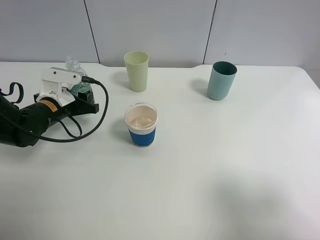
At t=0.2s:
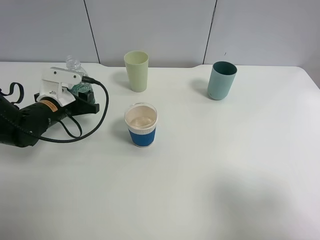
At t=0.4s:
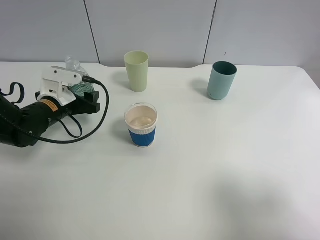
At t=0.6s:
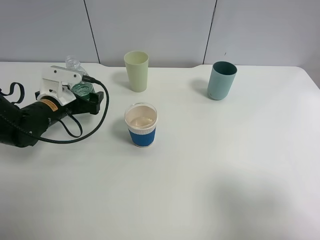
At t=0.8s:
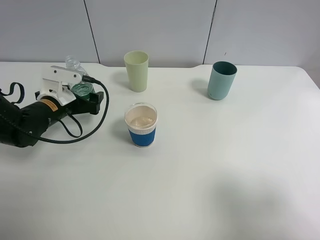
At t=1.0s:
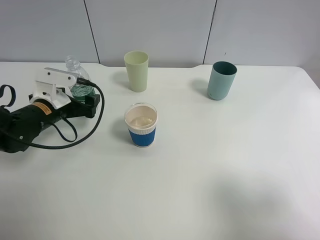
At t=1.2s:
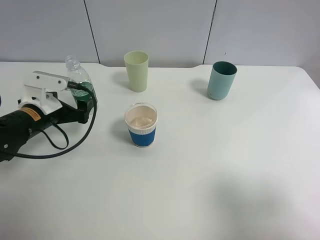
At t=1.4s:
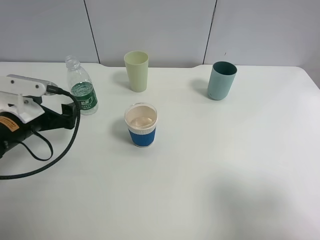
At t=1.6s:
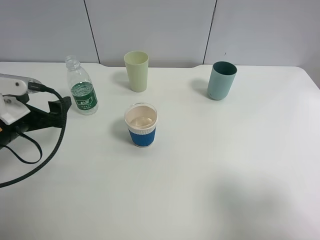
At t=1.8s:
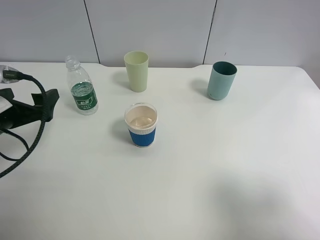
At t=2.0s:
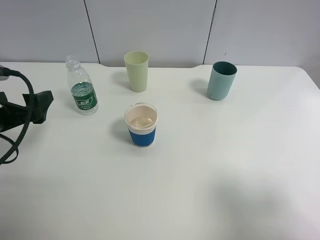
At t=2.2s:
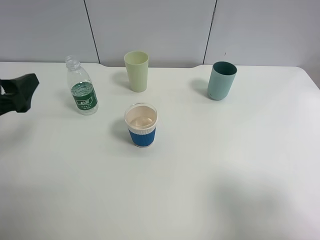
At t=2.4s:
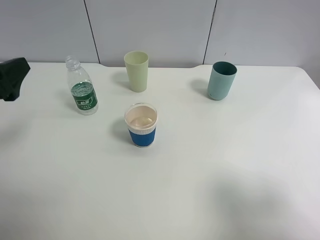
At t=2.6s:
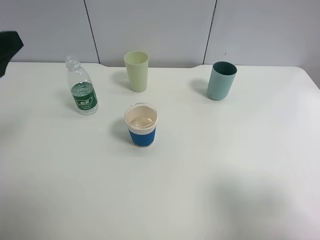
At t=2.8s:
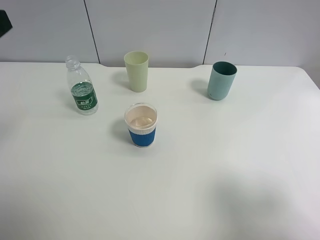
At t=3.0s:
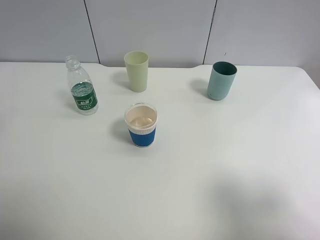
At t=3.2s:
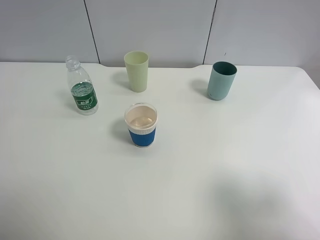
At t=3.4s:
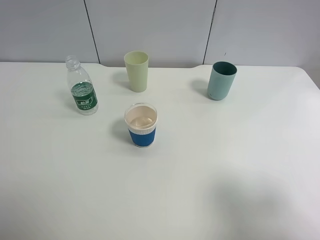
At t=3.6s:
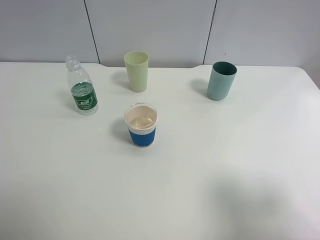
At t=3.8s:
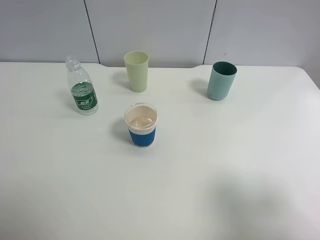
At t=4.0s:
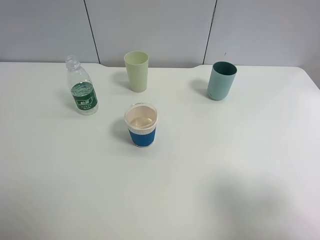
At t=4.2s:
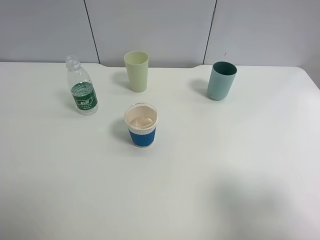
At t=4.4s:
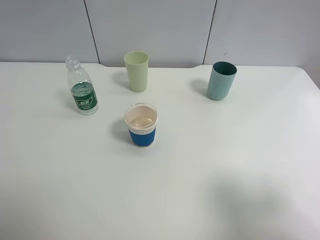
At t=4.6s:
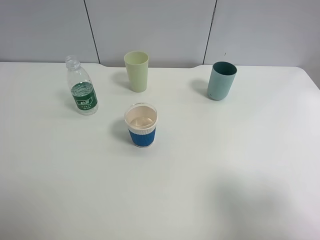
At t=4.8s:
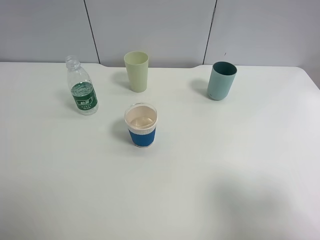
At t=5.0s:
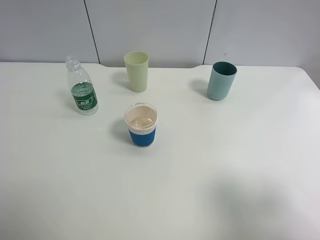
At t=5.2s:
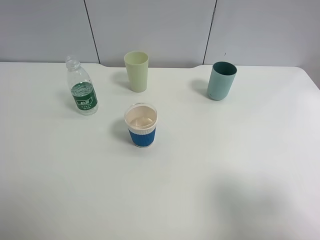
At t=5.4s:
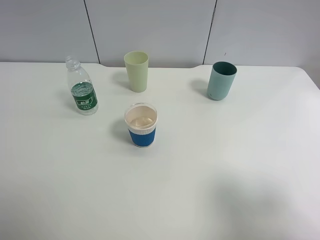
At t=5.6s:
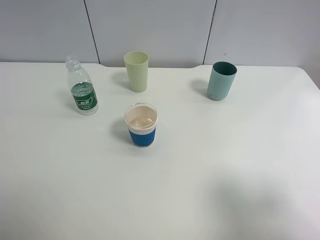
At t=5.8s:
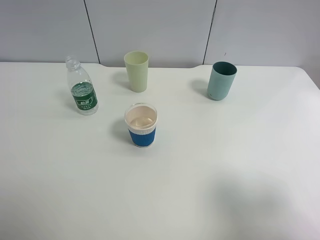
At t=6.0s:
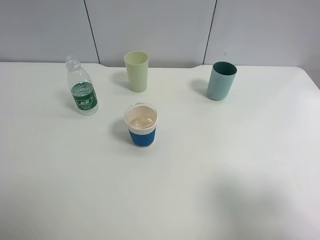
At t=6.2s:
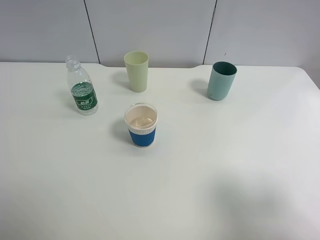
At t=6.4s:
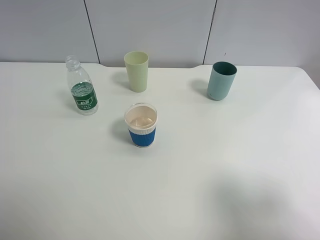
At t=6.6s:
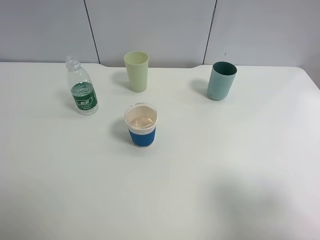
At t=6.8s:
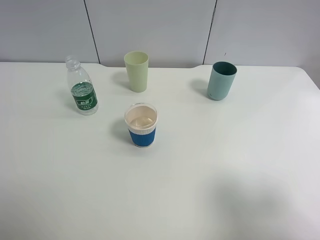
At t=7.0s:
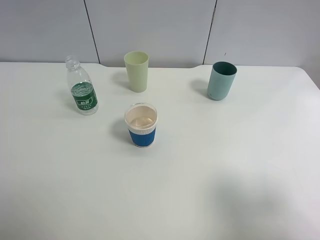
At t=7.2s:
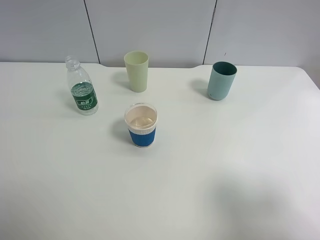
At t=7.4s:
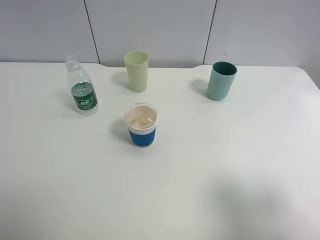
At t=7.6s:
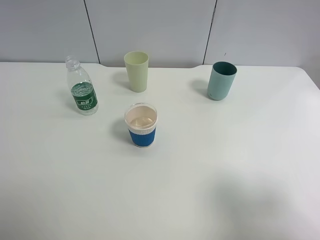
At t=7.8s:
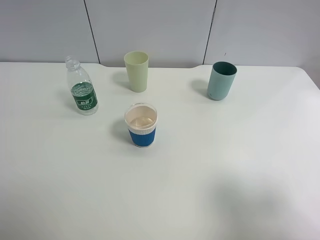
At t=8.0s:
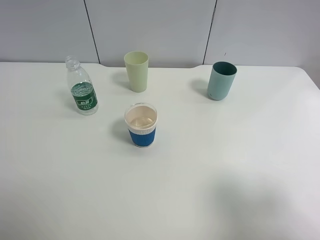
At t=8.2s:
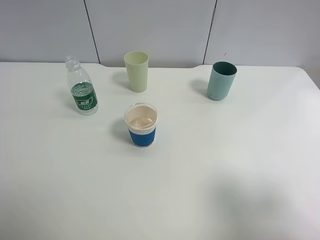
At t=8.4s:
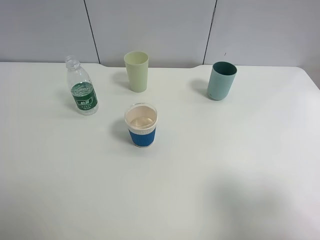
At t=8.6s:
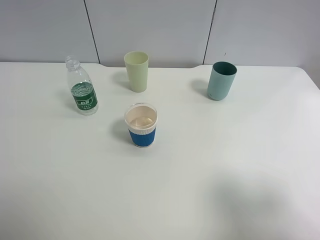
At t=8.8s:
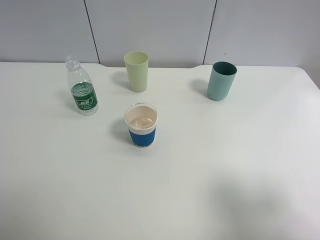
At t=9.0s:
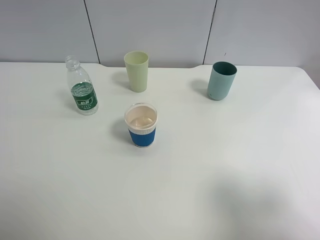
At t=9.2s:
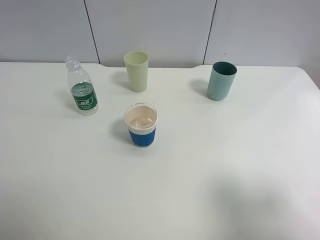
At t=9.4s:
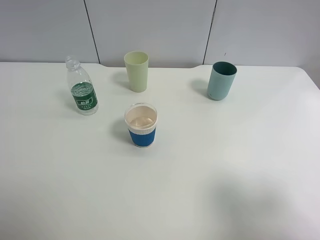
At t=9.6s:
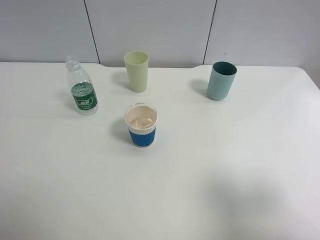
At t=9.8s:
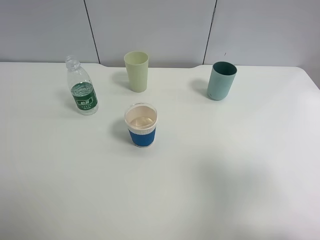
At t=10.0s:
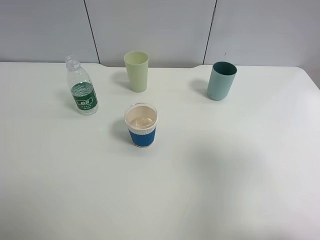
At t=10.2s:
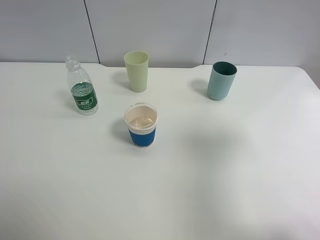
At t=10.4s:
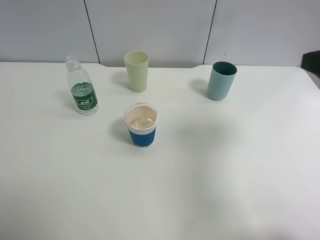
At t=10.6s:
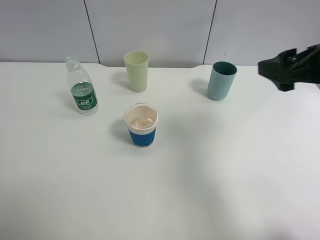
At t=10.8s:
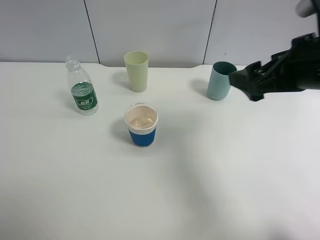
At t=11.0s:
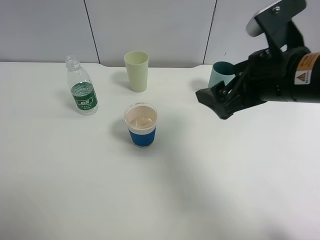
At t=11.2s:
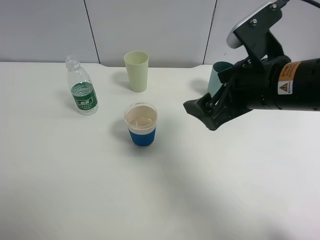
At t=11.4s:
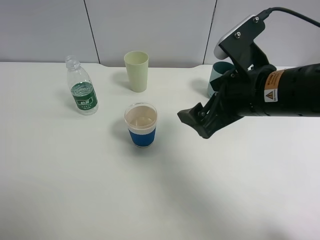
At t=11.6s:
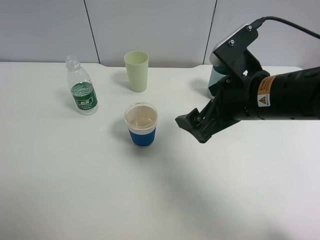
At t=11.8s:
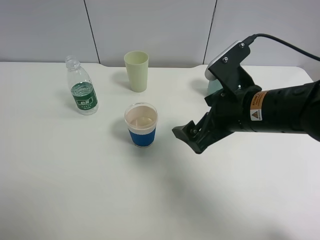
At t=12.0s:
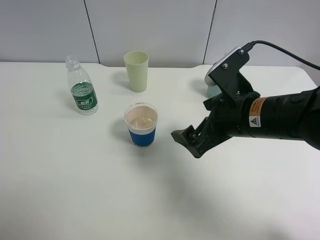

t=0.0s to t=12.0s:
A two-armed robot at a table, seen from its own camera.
Task of the whole recording: use a clamp to hold the bottle of the drink, pour the beverage into a random cup, then clamp the cup containing the drink and pour the drink into another random cup.
t=0.0s to t=1.6s: The left gripper travels backward and upward by approximately 10 cm, and opens its fingers.
t=1.6s to t=3.0s: The left gripper heads upward, covering roughly 20 cm.
t=6.0s to t=9.0s: The two grippers keep their place.
t=9.0s to t=10.4s: The right gripper is displaced forward by some 15 cm.
t=10.4s to t=12.0s: The right gripper shifts some 20 cm to the left and downward.

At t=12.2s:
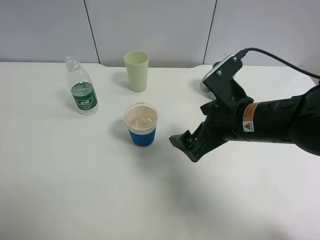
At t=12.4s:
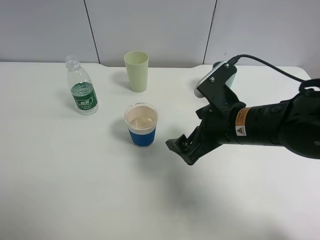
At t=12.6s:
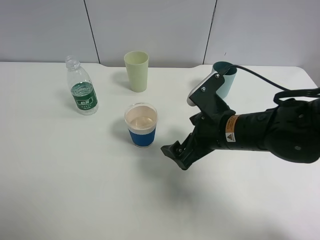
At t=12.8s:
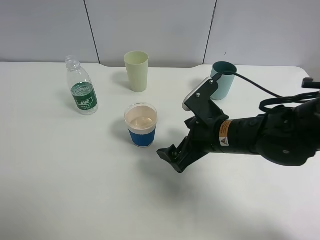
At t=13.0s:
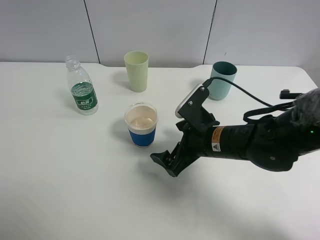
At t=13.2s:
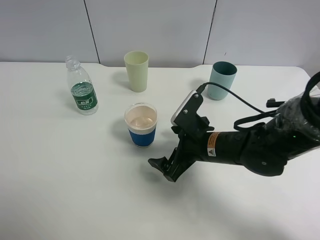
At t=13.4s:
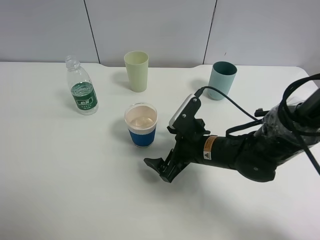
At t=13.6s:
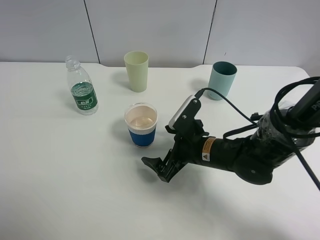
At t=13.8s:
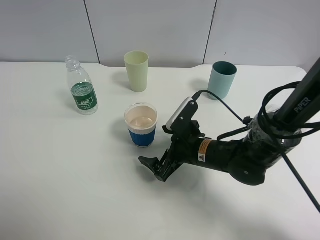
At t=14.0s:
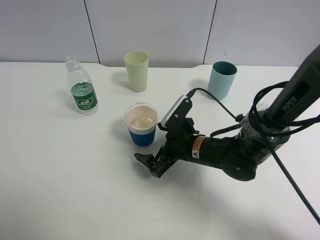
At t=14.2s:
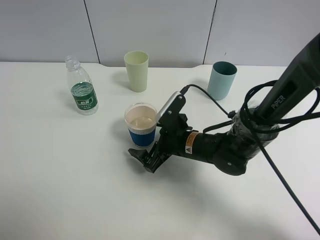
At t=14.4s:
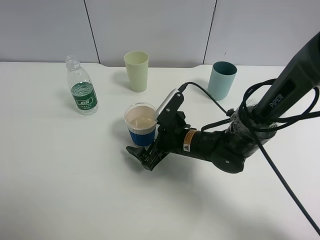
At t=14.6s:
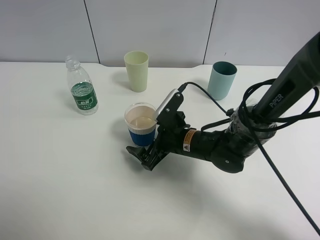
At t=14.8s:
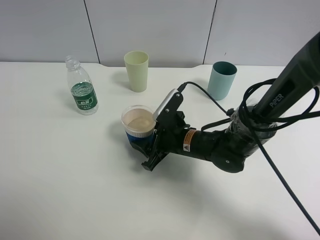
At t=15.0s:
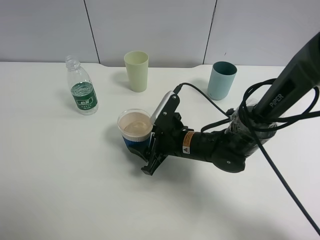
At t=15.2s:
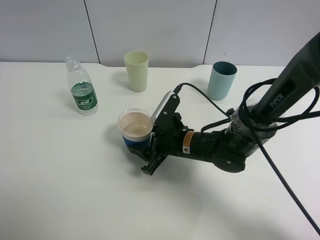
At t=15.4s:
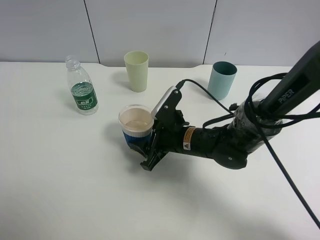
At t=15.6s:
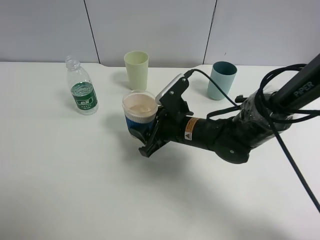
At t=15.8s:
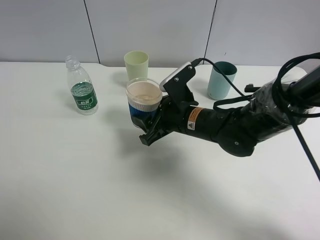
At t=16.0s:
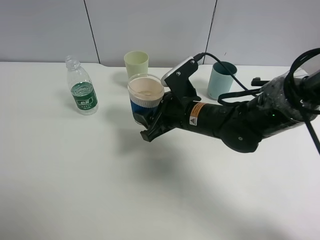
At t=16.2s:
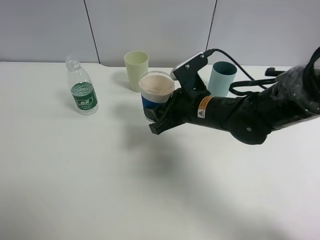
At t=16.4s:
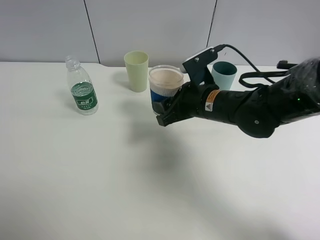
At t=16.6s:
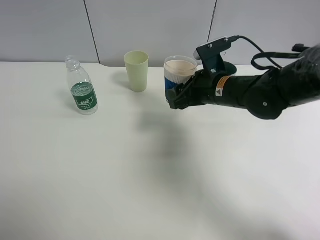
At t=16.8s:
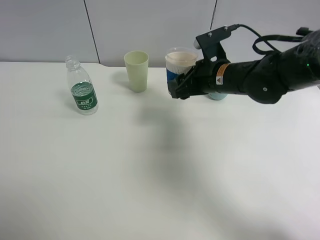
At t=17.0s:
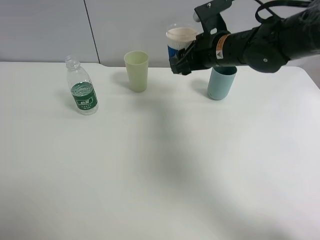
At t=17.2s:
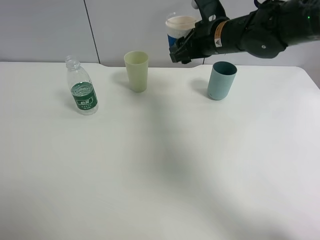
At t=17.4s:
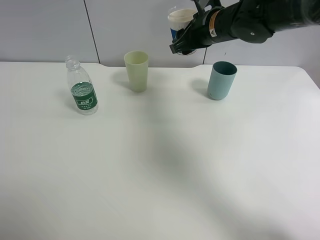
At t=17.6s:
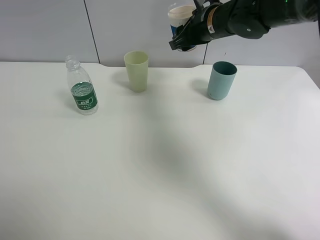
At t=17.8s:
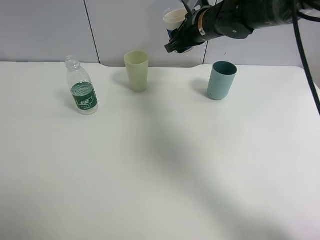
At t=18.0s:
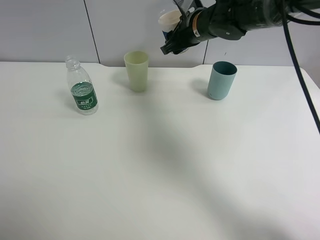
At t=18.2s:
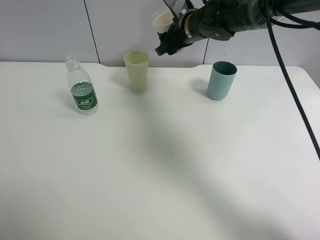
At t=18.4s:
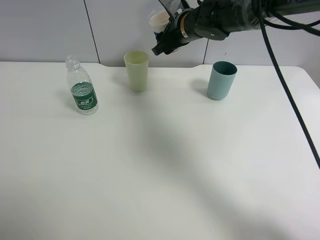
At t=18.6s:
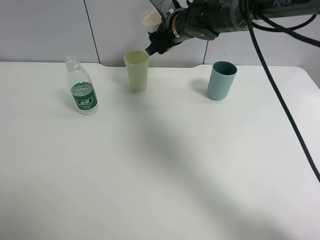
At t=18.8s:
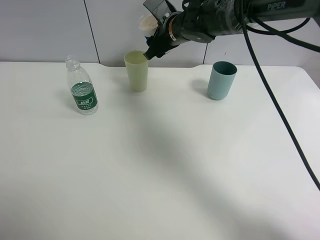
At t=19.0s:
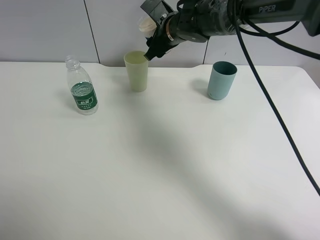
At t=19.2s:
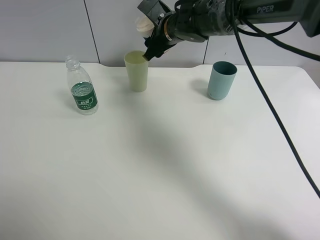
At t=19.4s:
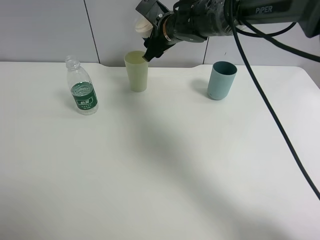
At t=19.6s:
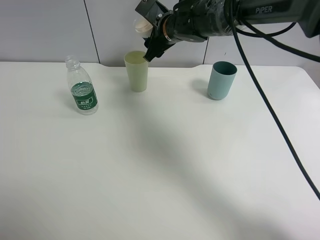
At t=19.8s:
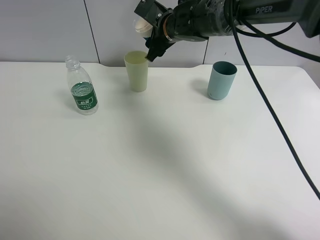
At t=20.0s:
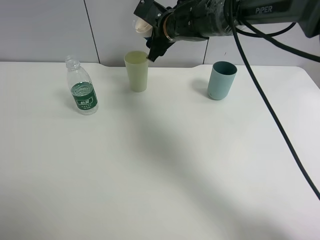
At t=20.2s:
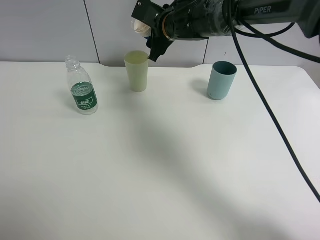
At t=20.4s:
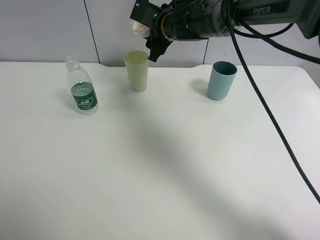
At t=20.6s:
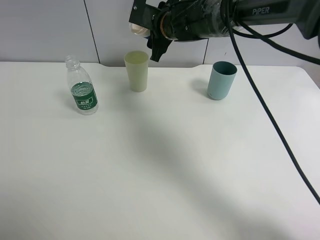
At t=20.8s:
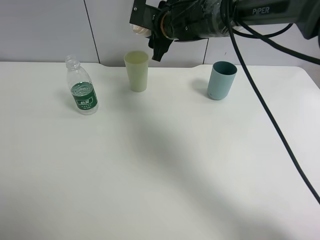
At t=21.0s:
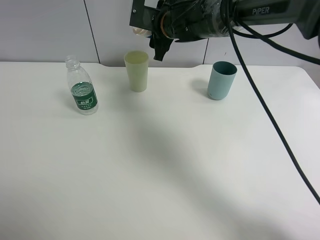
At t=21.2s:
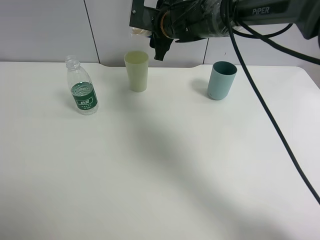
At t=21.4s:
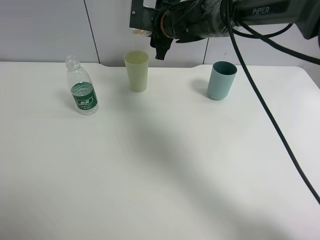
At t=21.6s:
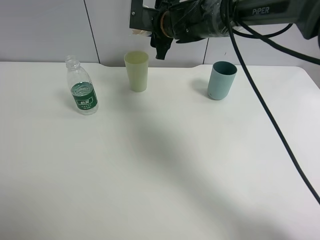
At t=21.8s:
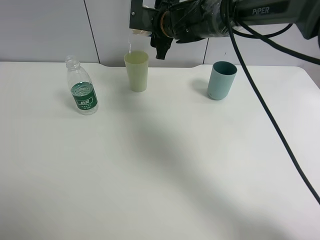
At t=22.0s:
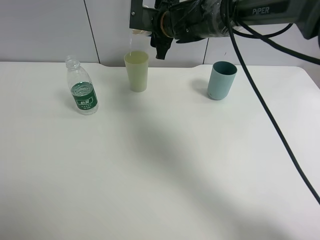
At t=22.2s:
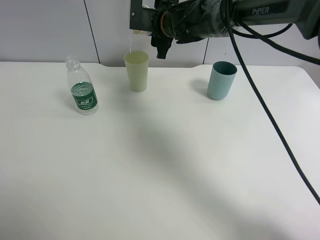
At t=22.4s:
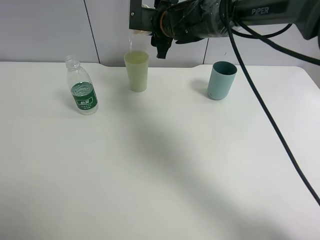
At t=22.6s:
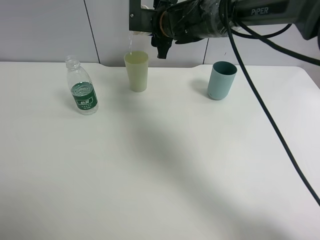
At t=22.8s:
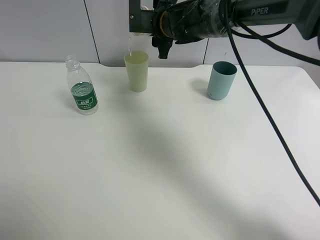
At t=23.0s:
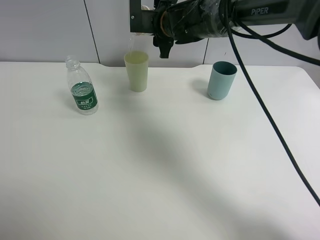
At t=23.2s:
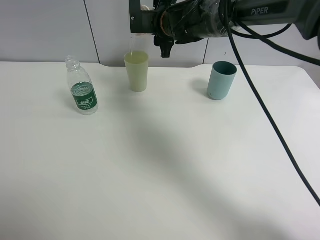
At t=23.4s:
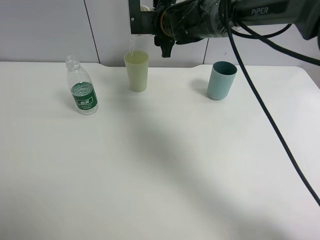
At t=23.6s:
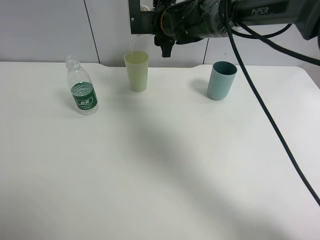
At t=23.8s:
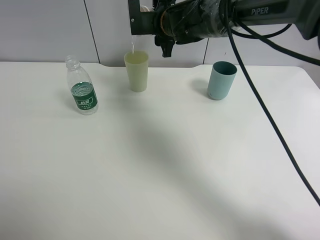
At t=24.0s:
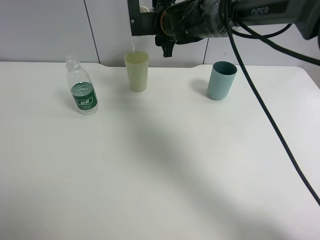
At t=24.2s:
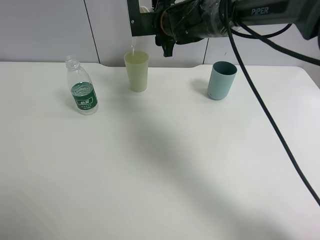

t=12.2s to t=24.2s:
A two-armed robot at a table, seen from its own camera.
Task of the whole recording: use a clamp to hold the bottle of the drink, pour the beverage into a random cup, then clamp the cup containing the drink and pour the drink into another random cup.
Step, t=12.2s to t=15.6s: Pick up the paper cup with right gripper.
t=12.2s to t=13.8s: The right gripper goes roughly 10 cm downward.
t=13.8s to t=15.2s: The right gripper closes.
t=15.2s to t=16.6s: The right gripper heads upward, to the right and forward, covering about 15 cm.
t=16.6s to t=18.2s: The right gripper is displaced forward and upward by some 15 cm.
t=21.2s to t=22.6s: The grippers stay close to where they were, moving slightly.
